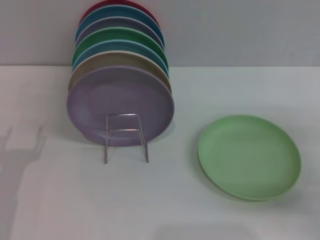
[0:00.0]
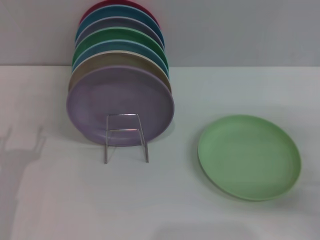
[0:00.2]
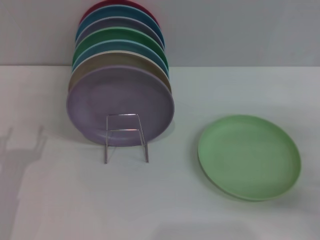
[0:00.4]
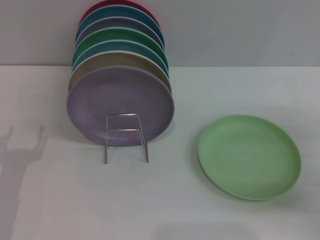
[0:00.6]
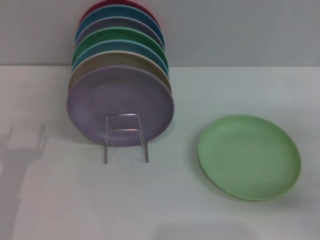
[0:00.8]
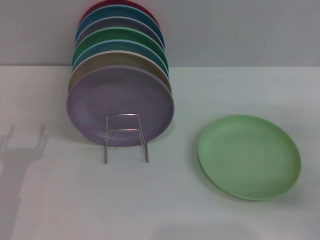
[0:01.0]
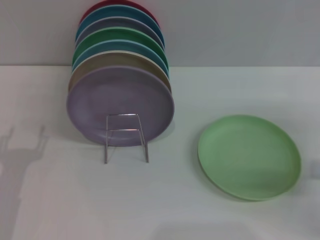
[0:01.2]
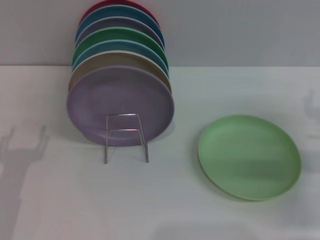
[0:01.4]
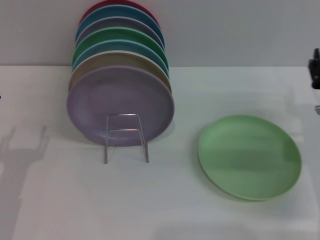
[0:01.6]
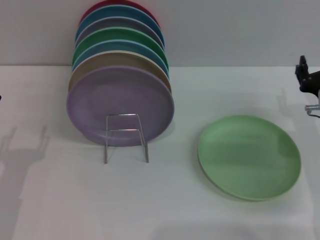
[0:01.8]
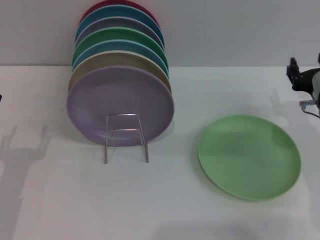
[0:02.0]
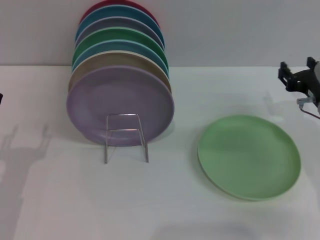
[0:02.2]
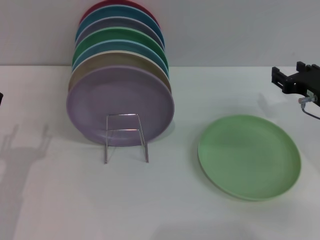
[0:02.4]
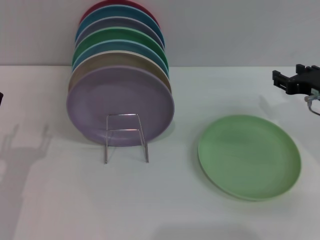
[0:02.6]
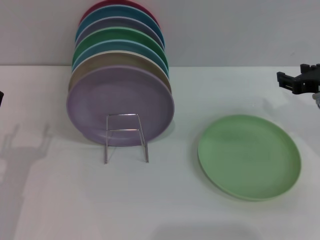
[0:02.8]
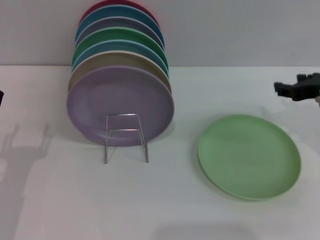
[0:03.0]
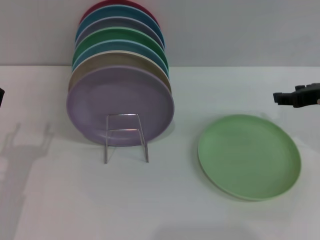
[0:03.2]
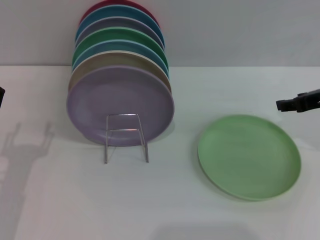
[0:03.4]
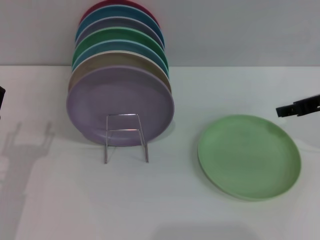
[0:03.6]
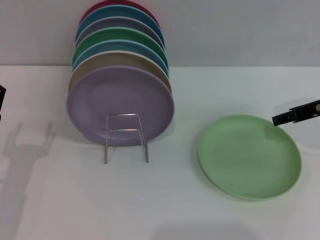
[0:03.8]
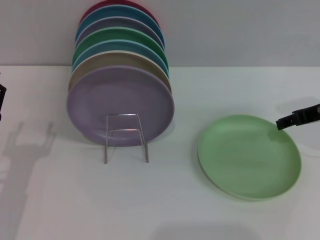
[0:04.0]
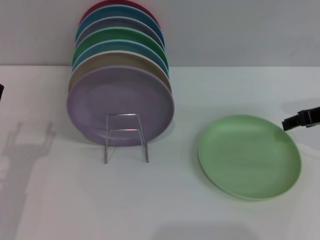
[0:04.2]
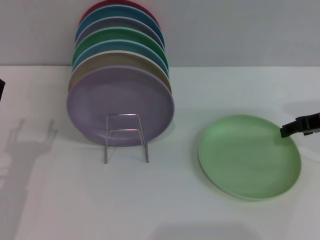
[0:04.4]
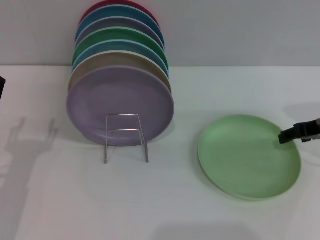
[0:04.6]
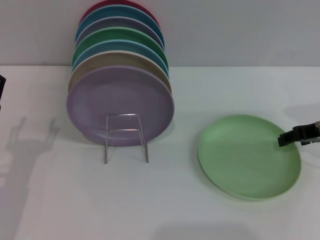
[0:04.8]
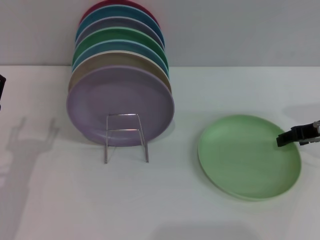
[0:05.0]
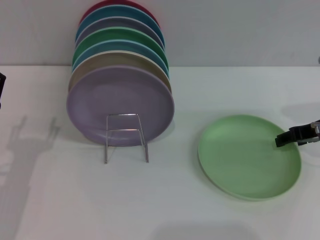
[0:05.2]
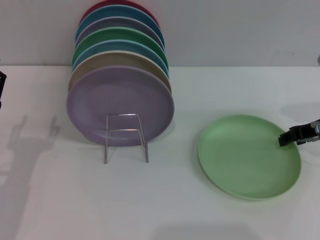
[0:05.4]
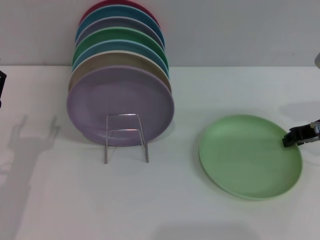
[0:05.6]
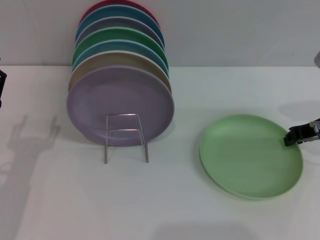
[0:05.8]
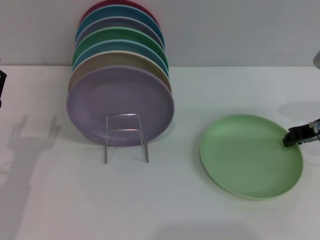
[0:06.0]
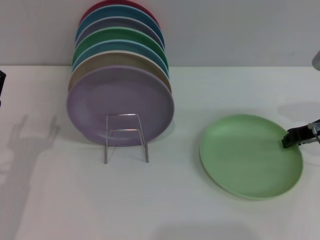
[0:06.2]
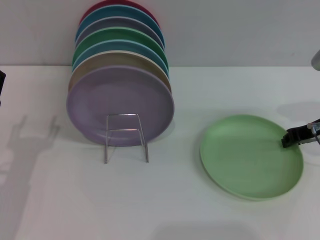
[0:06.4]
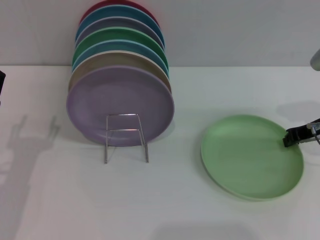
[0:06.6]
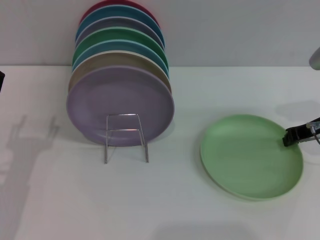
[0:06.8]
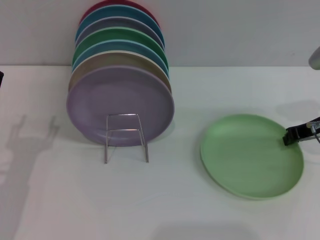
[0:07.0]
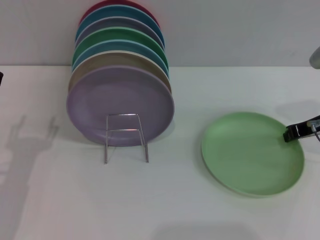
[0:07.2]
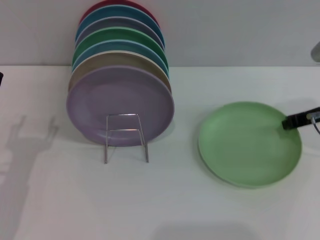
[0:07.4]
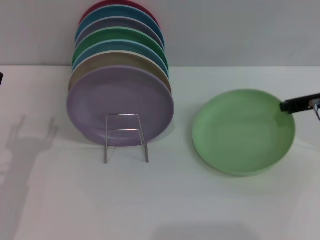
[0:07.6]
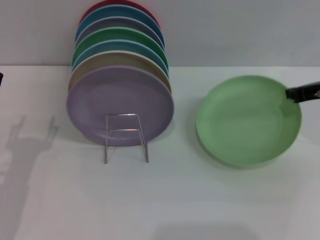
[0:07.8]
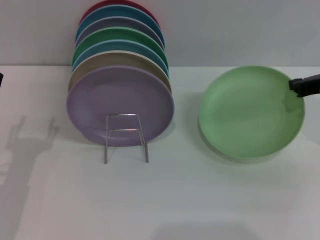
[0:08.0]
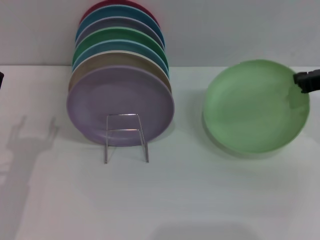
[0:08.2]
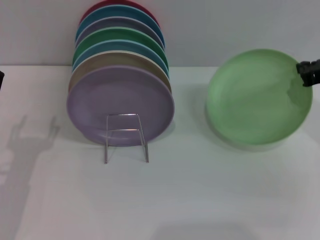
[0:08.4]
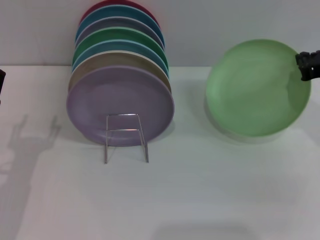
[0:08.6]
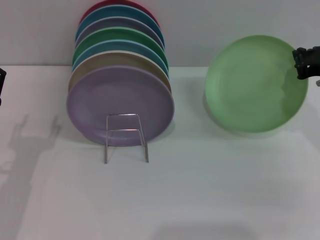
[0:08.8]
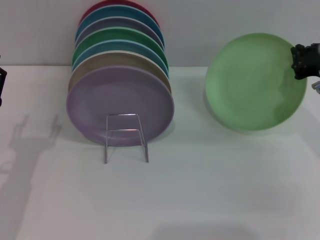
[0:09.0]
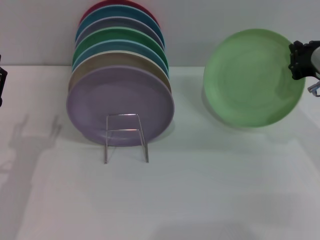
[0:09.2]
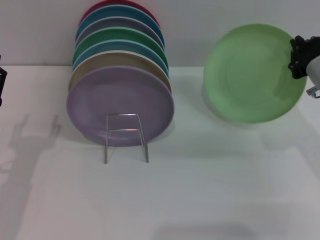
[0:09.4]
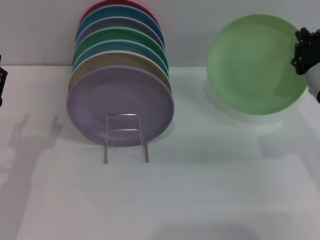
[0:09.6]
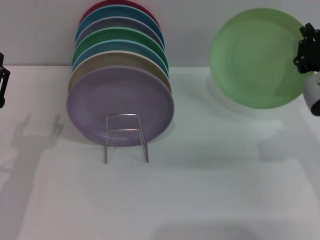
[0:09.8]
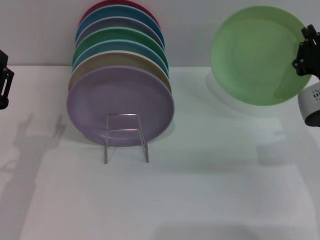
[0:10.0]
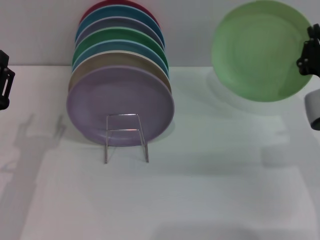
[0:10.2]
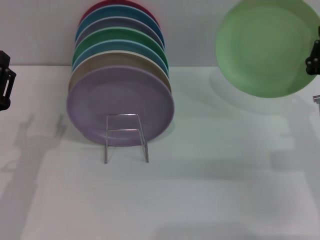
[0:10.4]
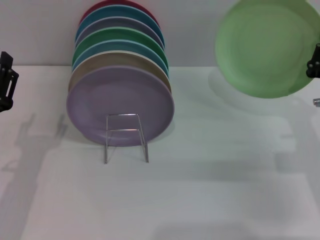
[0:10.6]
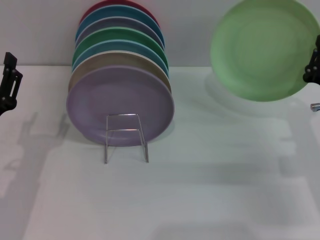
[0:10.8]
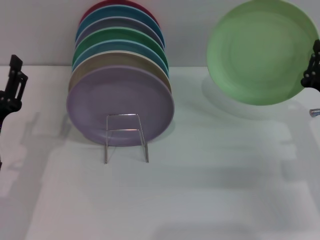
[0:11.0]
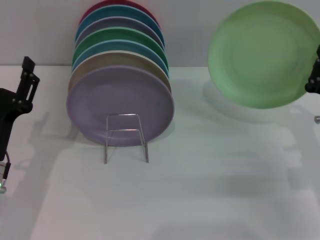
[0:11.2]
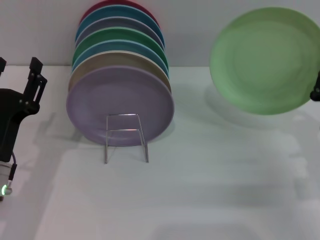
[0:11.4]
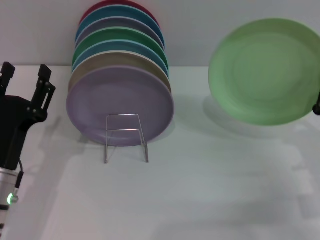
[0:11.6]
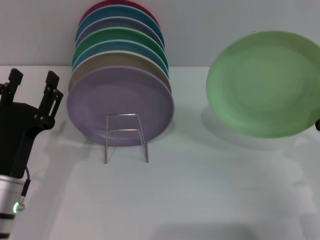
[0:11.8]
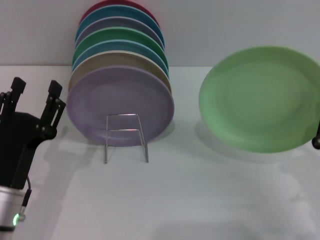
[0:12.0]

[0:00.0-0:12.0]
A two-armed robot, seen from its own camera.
Task of the whole recording: Grip the plate with one hand, pass it to the other, then set it on the shelf.
Step, 0:00.0 to 0:10.8: Pick up the plate with the right gripper.
0:00.0 to 0:01.6: The right gripper travels to the left and forward by approximately 10 cm.
0:01.6 to 0:03.0: The right gripper shifts about 10 cm upward.
0:04.4 to 0:06.0: The right gripper closes.
0:06.0 to 0:07.6: There are only small adjustments of the grippers.
0:09.0 to 0:10.4: The right gripper shifts roughly 5 cm downward.
0:10.4 to 0:12.0: The right gripper travels backward and downward by approximately 15 cm. Meanwhile the left gripper ends up approximately 5 cm from where it was.

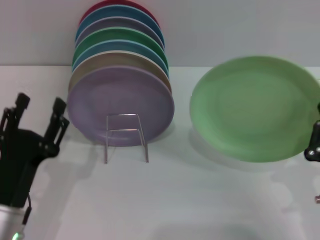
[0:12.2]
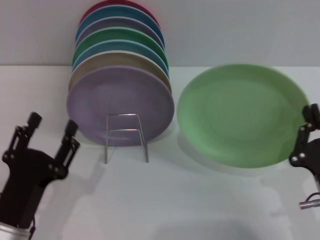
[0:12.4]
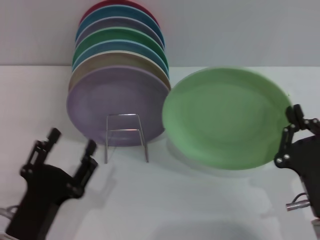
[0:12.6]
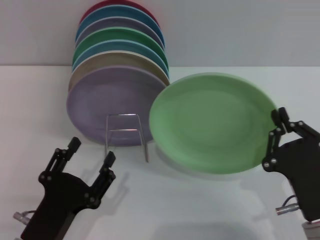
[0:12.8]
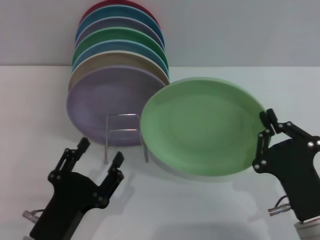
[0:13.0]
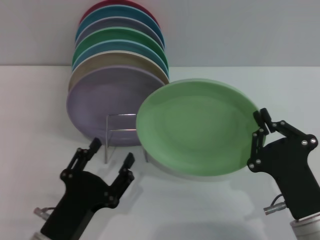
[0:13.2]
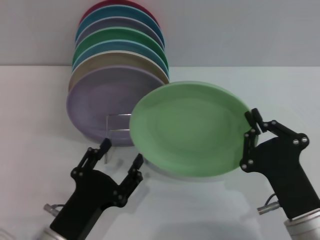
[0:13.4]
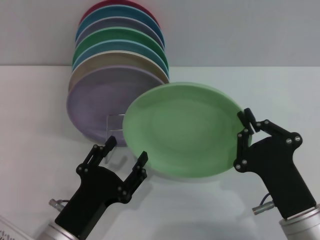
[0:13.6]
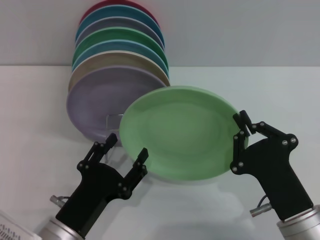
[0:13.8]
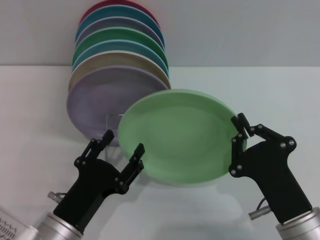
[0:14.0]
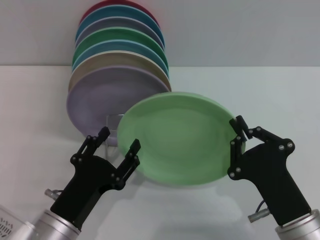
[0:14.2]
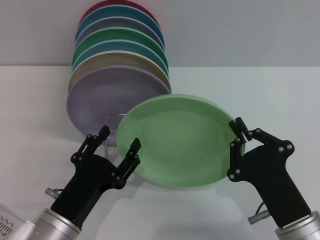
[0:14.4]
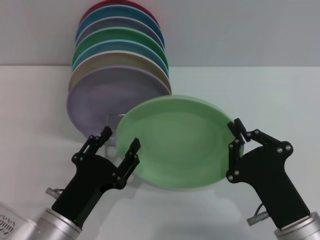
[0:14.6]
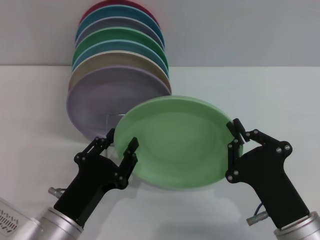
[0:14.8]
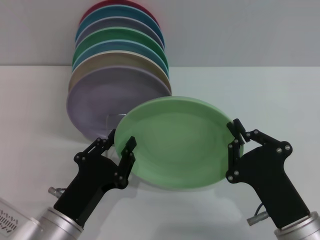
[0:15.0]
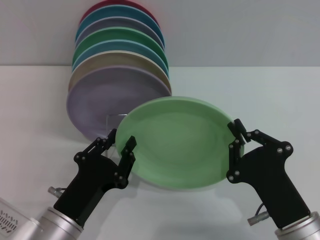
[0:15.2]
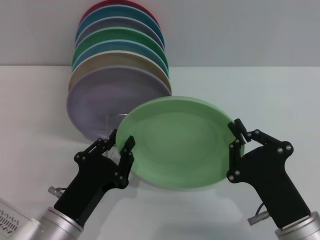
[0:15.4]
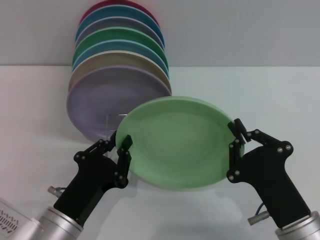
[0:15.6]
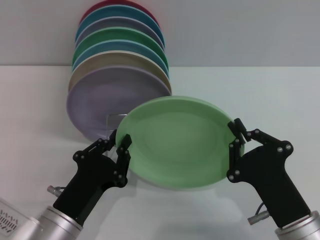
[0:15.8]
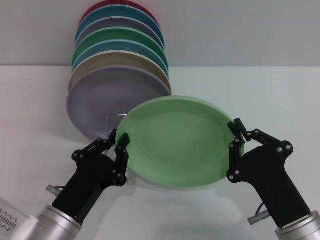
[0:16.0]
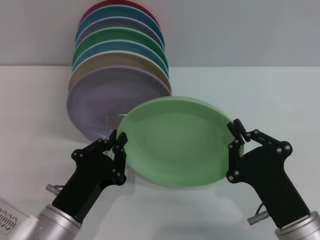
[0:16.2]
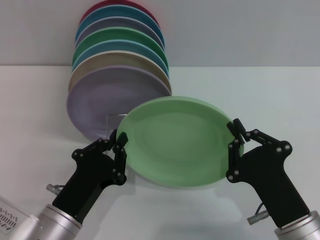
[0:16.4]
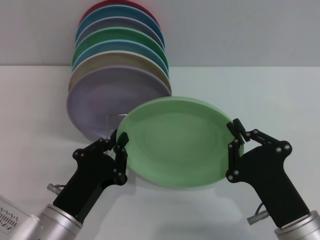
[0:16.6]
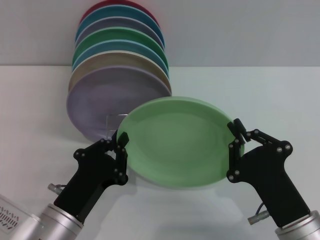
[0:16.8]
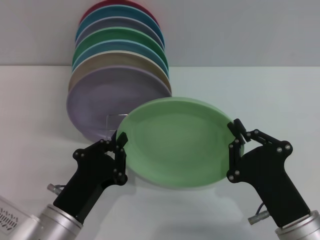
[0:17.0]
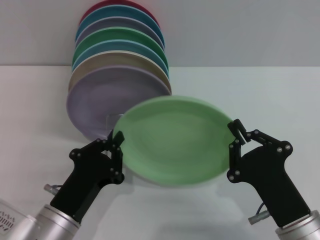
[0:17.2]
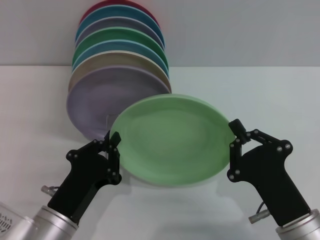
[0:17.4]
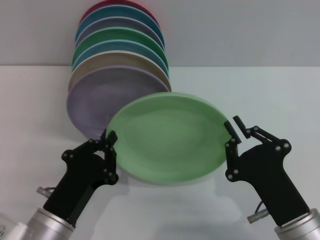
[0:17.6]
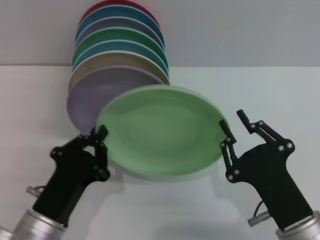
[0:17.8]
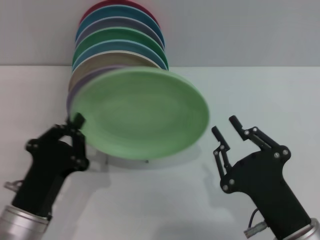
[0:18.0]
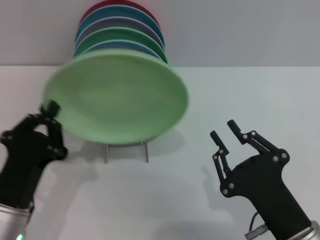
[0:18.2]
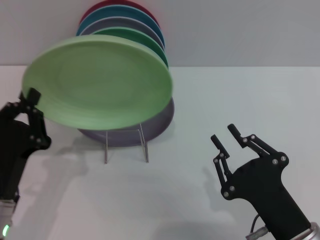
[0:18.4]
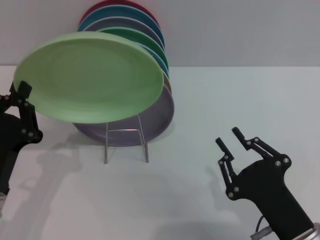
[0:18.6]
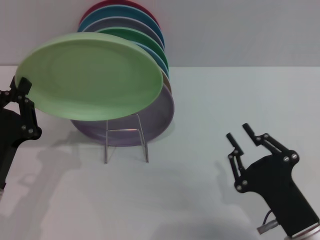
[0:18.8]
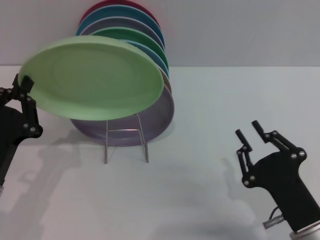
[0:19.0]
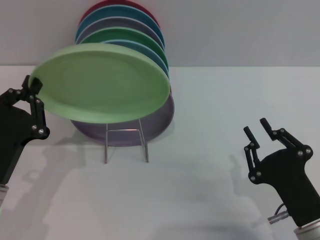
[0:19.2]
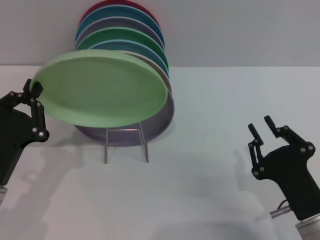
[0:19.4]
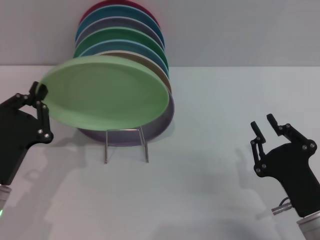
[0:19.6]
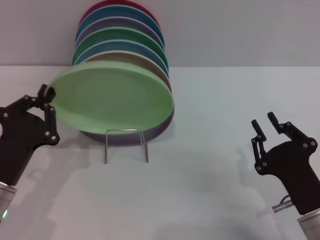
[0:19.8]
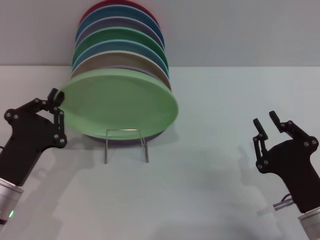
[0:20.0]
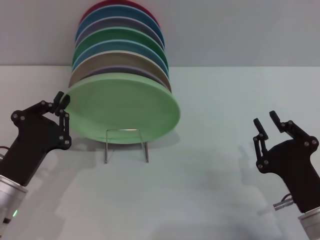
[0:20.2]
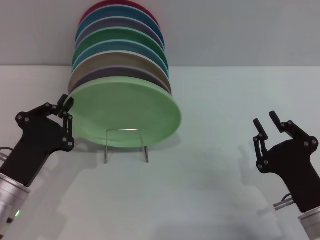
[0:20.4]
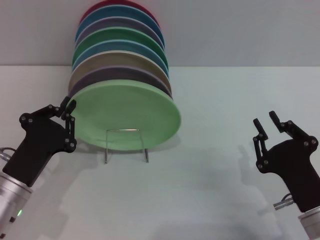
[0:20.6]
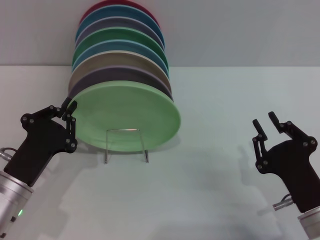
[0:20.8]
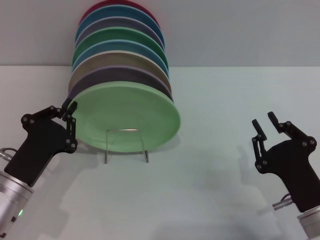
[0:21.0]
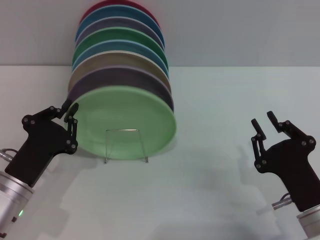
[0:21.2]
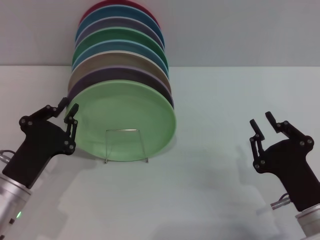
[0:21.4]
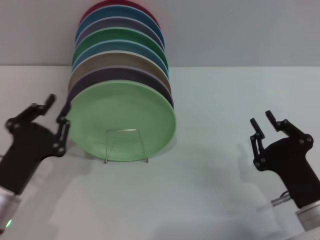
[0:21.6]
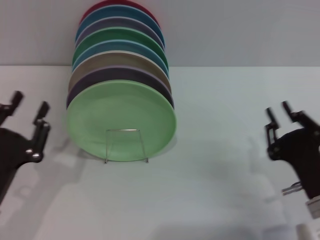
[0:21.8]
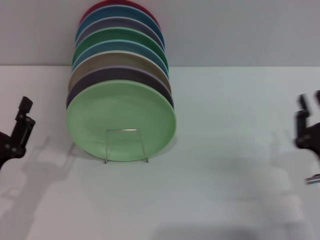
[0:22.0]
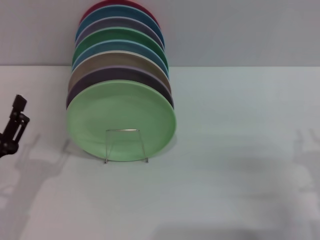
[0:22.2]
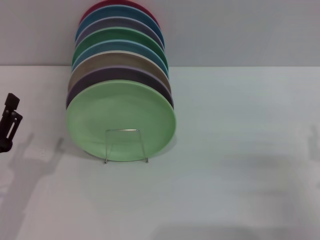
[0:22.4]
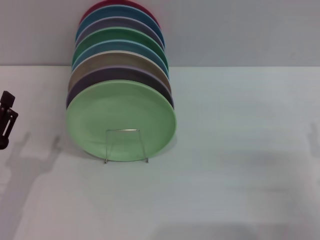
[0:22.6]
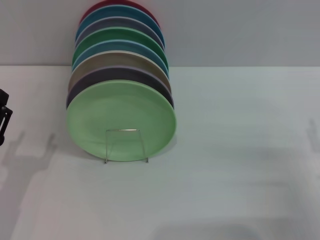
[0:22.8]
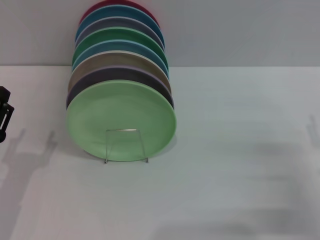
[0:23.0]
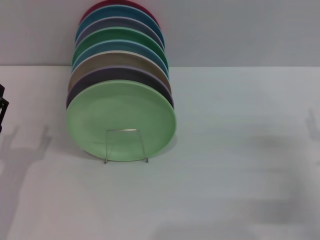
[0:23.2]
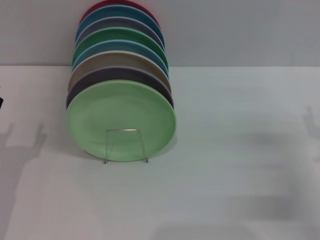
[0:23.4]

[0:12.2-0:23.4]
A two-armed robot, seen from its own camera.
Task of the whole recording: Grip the plate with one hand, pass it to the other, then set it on the shelf.
Step, 0:12.2 to 0:18.2: Pass the plate from the right gripper to the left gripper.
Step, 0:18.4 to 0:21.8: Place the plate on the shelf with the left gripper.
0:12.2 to 0:13.8: The right gripper is displaced to the left by roughly 5 cm, while the left gripper is displaced to the right by about 5 cm.
0:13.8 to 0:15.4: The left gripper closes.
0:15.4 to 0:17.0: The left gripper closes its fingers.
0:17.0 to 0:18.6: The right gripper opens. The left gripper heads to the left, covering approximately 5 cm.
0:20.2 to 0:21.8: The grippers stay close to where they were, moving slightly.
0:21.8 to 0:23.4: The left gripper opens; the right gripper moves to the right and forward, about 10 cm, and opens.
